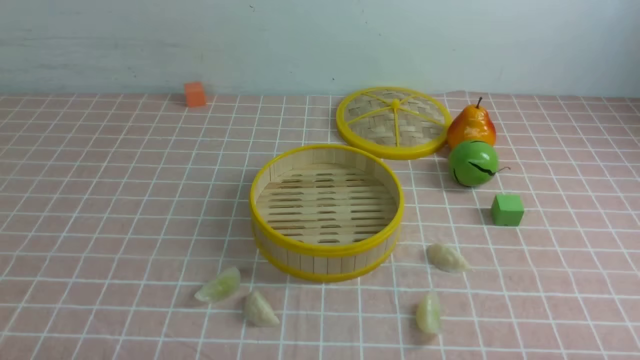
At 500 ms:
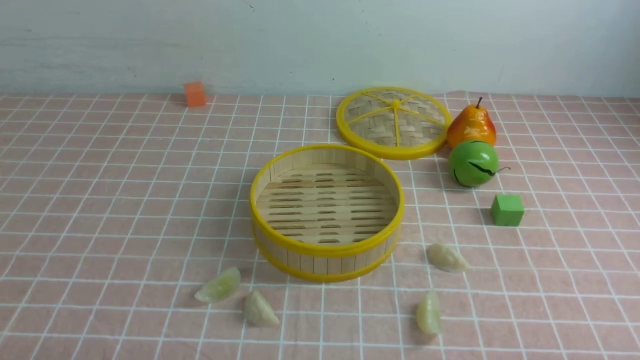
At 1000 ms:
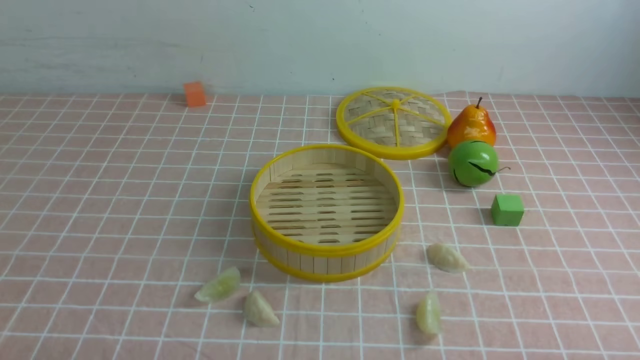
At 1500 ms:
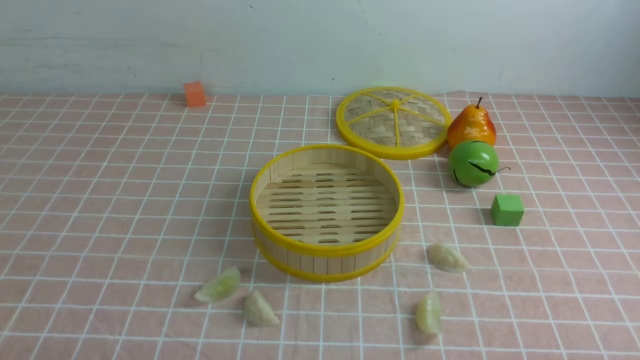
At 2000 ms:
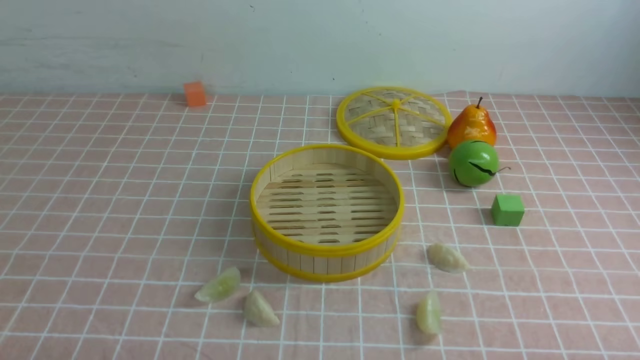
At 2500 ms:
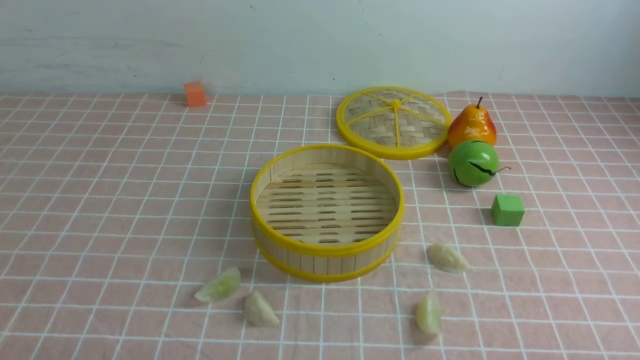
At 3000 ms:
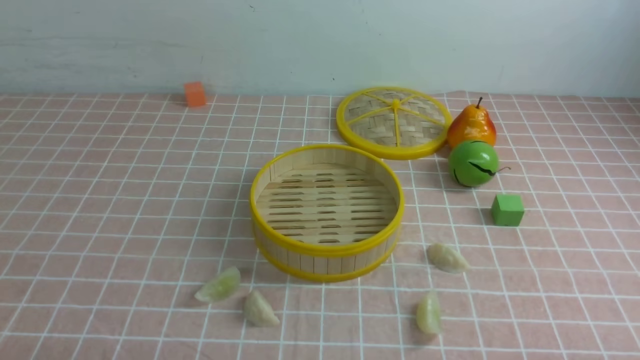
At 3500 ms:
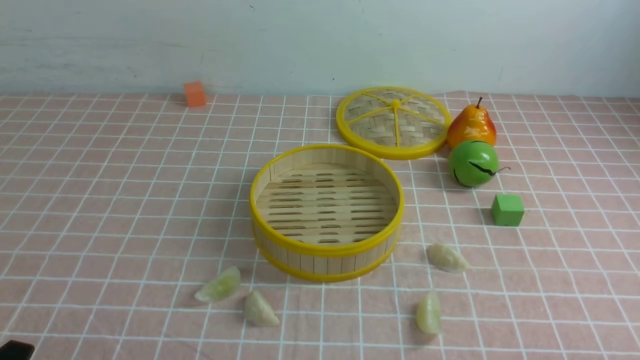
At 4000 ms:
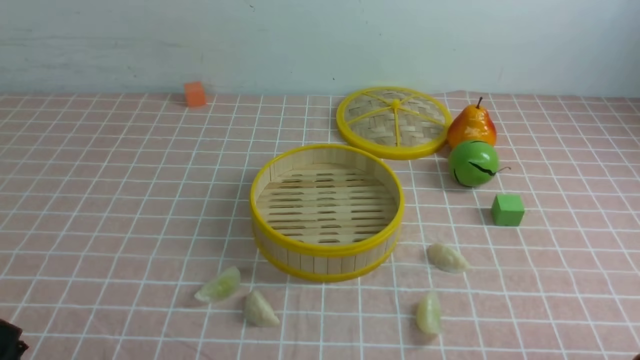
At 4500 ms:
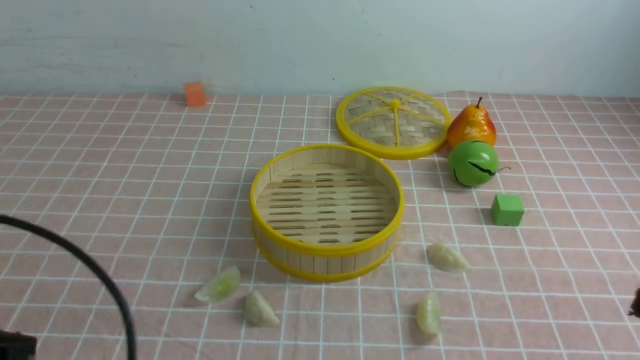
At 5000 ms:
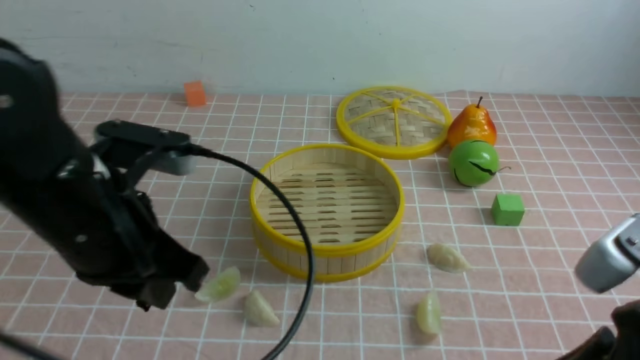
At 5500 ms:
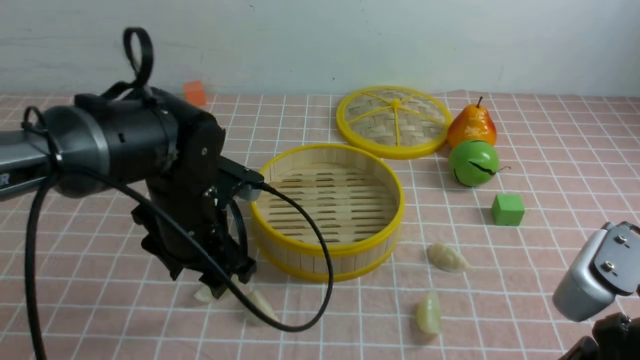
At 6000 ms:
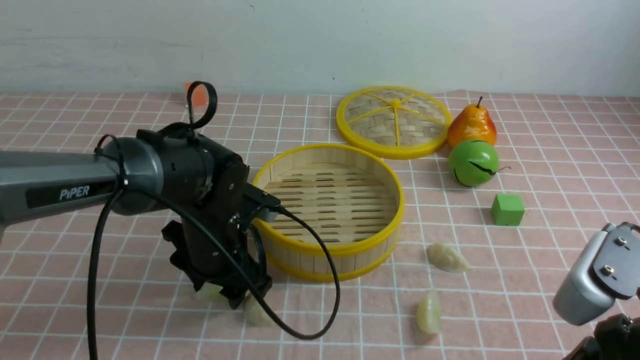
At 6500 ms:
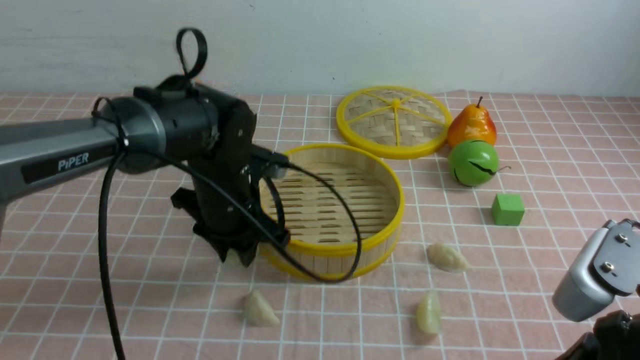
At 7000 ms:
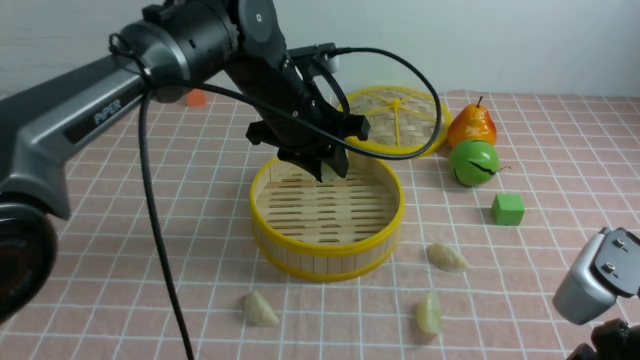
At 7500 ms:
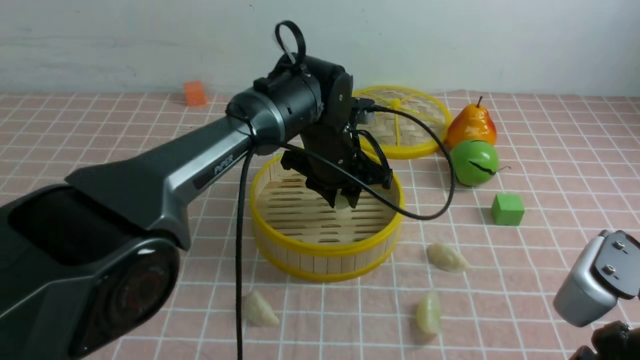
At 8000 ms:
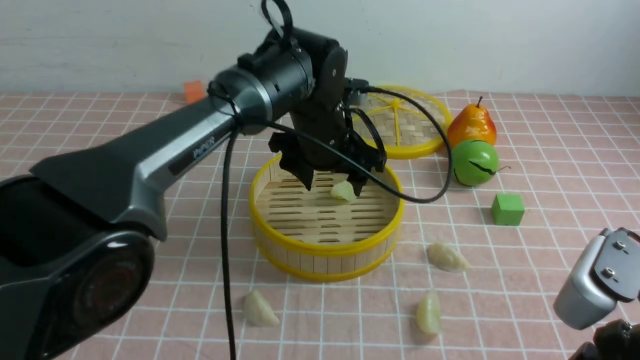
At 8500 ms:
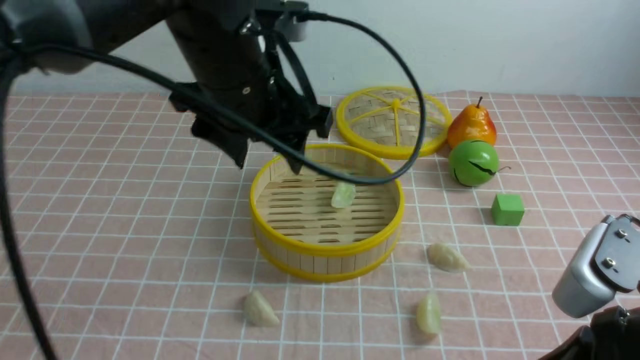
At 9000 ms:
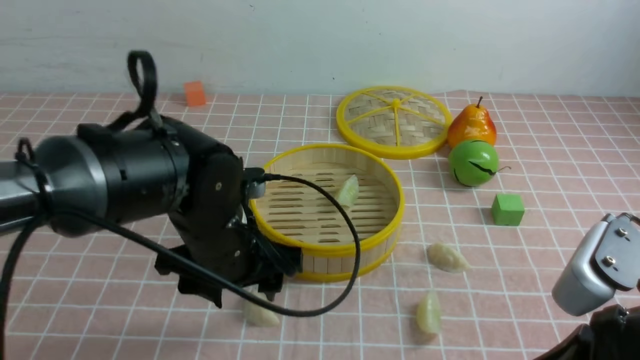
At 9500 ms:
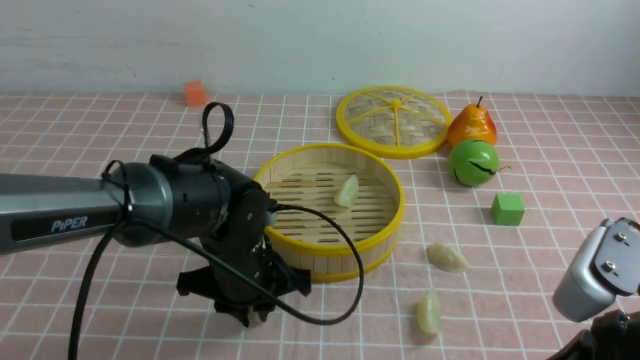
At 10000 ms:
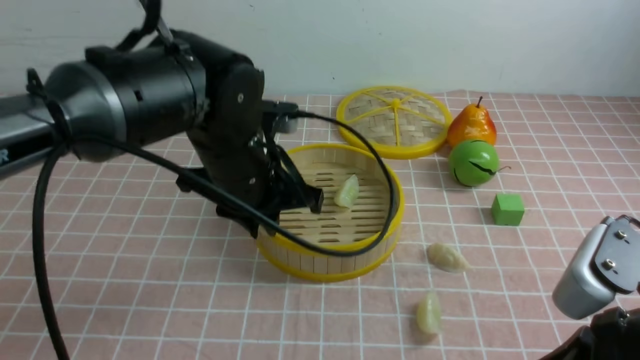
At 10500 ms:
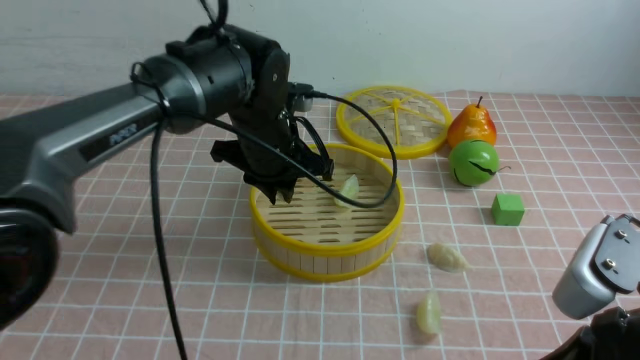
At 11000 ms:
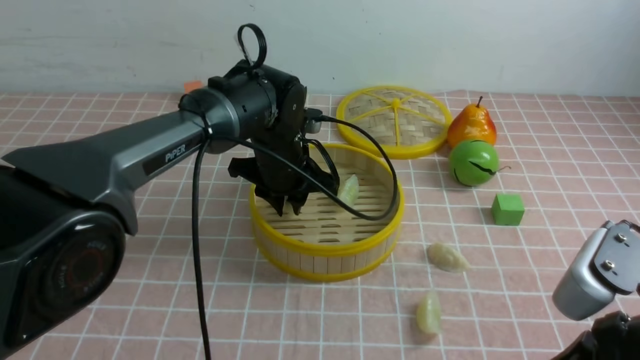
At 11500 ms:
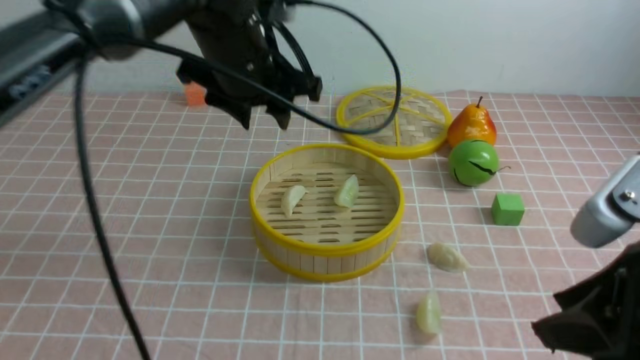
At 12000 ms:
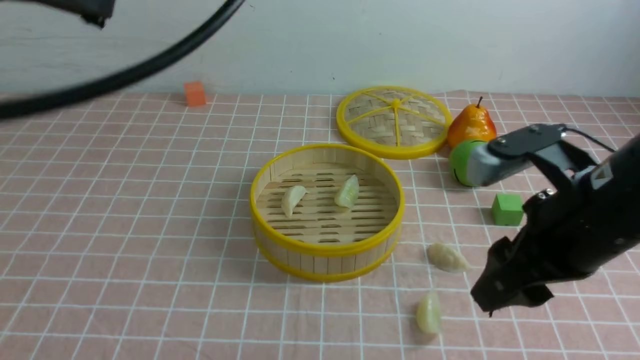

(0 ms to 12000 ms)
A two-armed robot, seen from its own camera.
Task of the whole recording: put the dumplings into the steamer on the table with the pink tablecloth.
Step, 0 ms - 6000 ms: use the left arm to grab a dumpling.
Step, 6500 ms - 8000 ms: use the left arm to put the dumpling into the steamer.
Step, 8500 ms - 9500 ms: use the left arm to grab a dumpling.
Step, 10000 ms - 11000 ms: use the left arm to put the dumpling into the steamer.
4000 ms - 6000 ms: The left gripper moves forward and to the right, some 30 cm, and opens, while the right gripper moves upward, forward and to the left, roughly 15 cm, and closes up.
6000 ms - 8000 ms: The left gripper moves to the right, forward and upward, some 15 cm, and closes, then reopens.
8000 ms - 10000 ms: The left gripper swings up and down, approximately 20 cm each way, with 2 reversals, and closes.
10000 ms - 12000 ms: The left gripper shifts roughly 25 cm upward and backward, and opens and closes again. The right gripper is displaced forward by some 10 cm, and opens.

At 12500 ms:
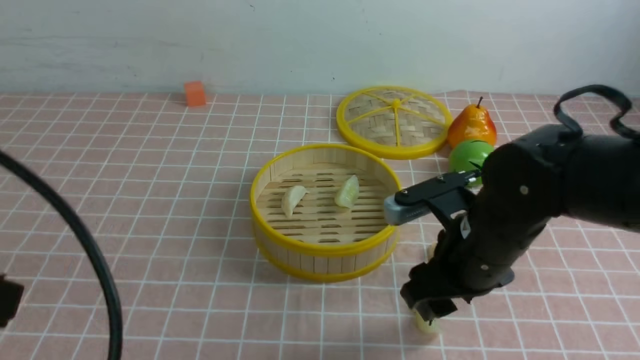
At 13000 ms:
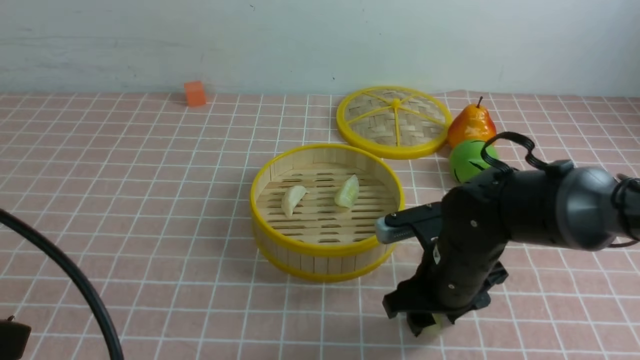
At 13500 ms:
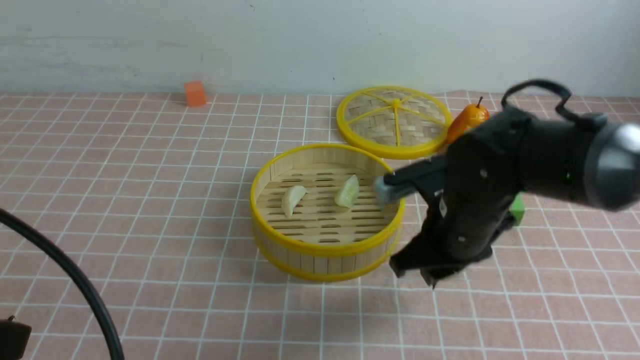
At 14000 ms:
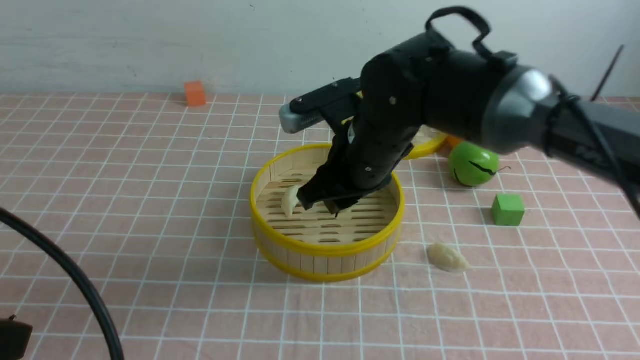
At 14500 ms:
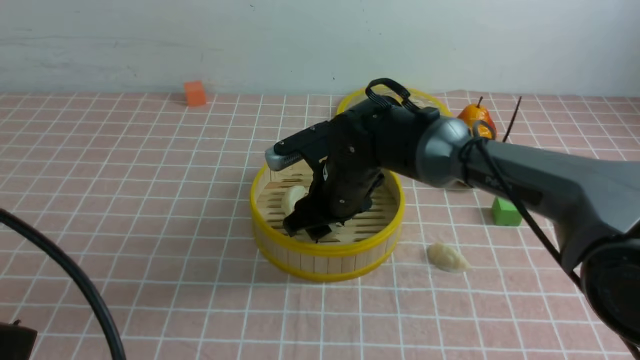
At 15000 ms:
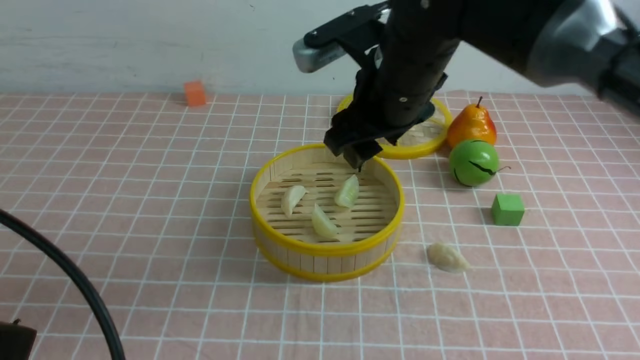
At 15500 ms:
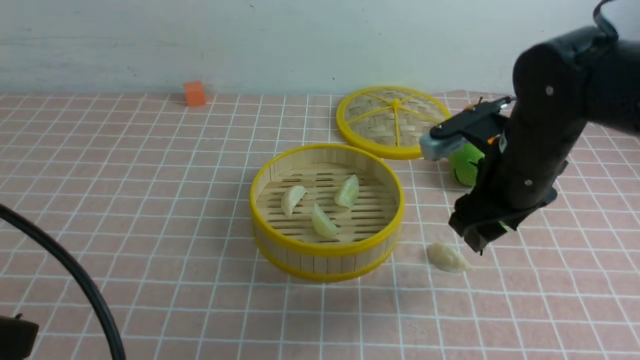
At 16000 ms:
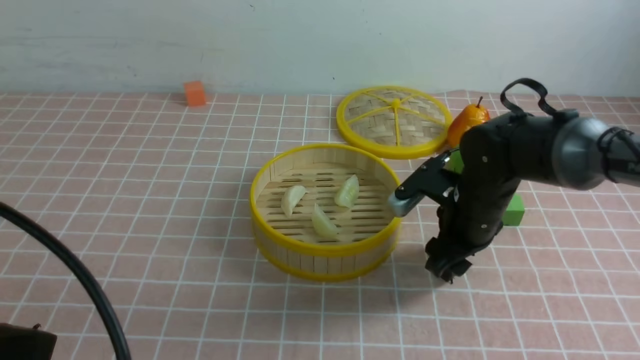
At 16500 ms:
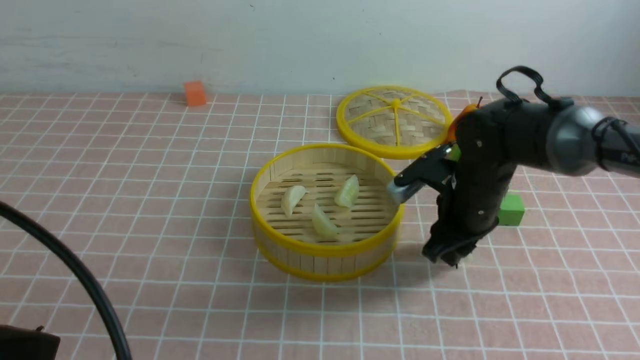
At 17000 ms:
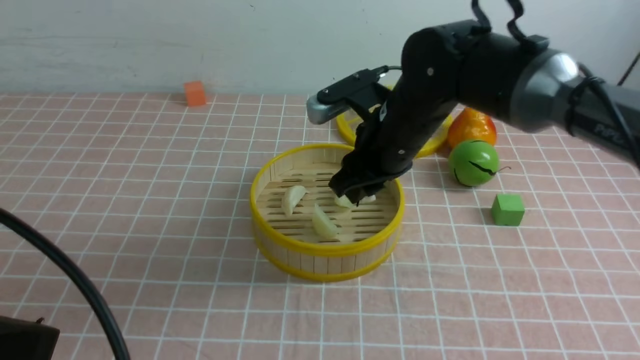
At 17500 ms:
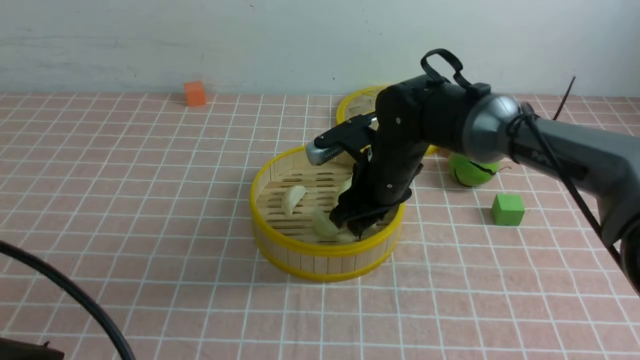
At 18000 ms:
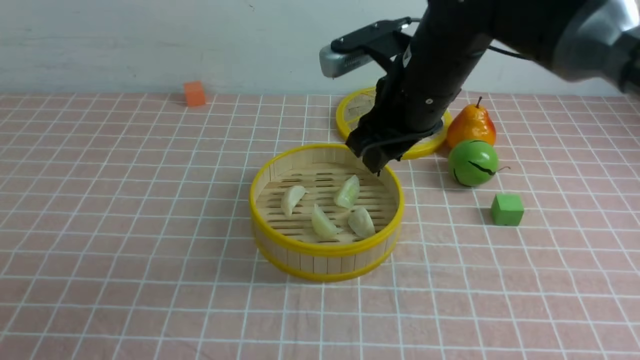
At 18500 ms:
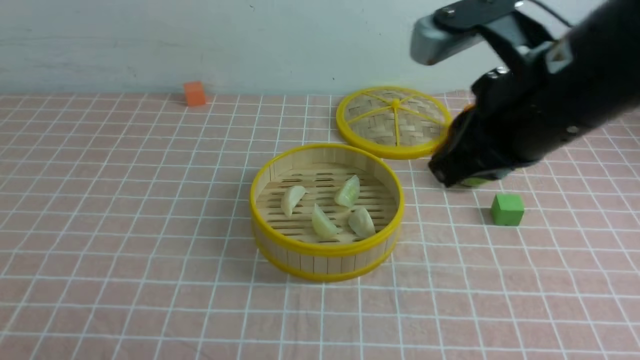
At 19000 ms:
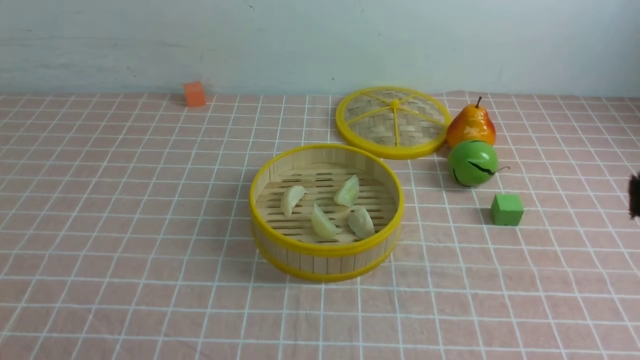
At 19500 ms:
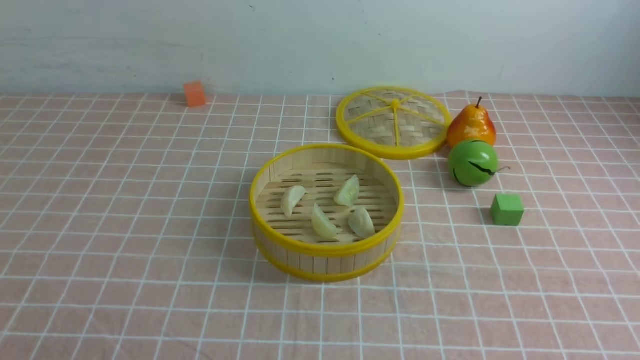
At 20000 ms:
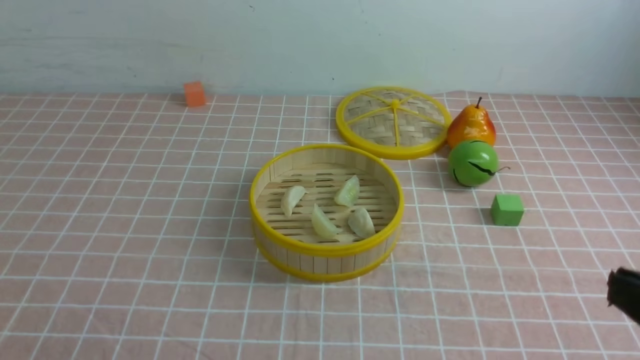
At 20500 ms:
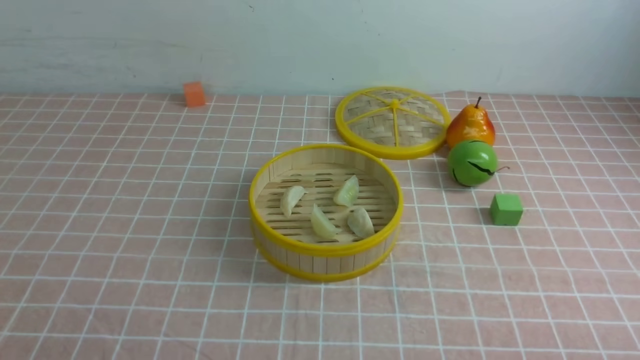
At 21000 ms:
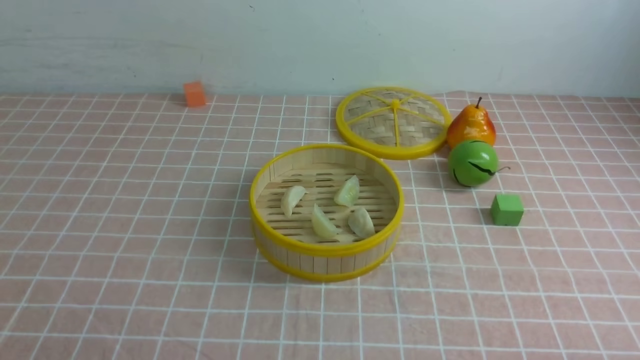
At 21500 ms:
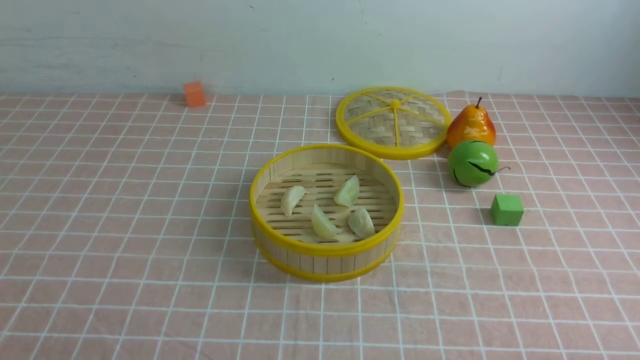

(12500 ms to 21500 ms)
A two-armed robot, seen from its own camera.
Task of the whole recording: put the dumplings into the steamer on the table with the pink tablecloth.
Step, 13500 ms - 14500 ms: use the right arm to put the dumpling into the steamer.
Step, 15000 ms - 16000 ms: use the right arm to grab a dumpling.
Step, 17000 ms - 17500 ms: use the right arm to put the dumpling into the steamer.
12500 ms - 14500 ms: The right gripper goes some 15 cm forward and to the left.
14500 ms - 17000 ms: The right gripper moves to the right and upward, about 10 cm.
17000 ms - 19500 ms: The right gripper goes about 35 cm backward and to the right, and closes its fingers. The left gripper is displaced downward and backward by some 10 cm.
